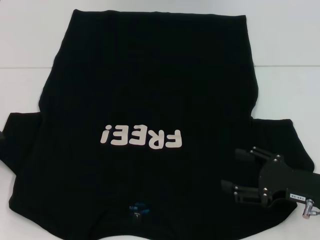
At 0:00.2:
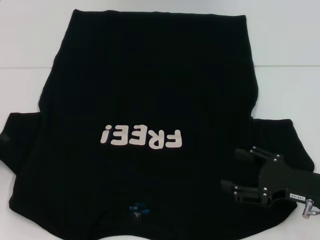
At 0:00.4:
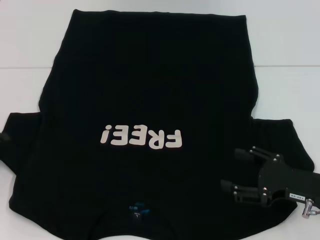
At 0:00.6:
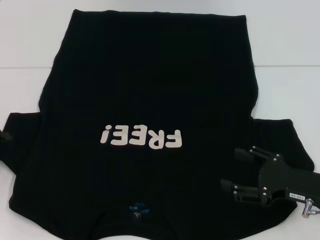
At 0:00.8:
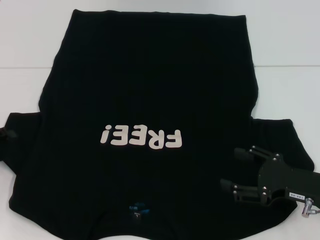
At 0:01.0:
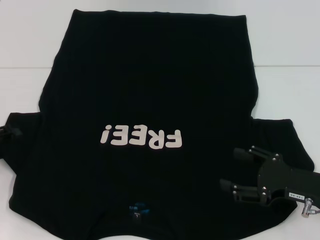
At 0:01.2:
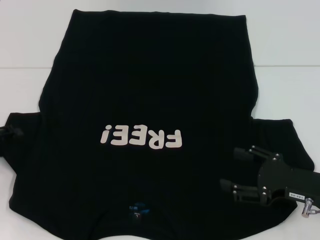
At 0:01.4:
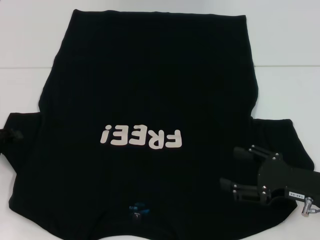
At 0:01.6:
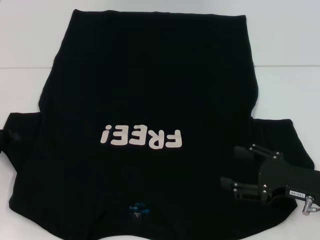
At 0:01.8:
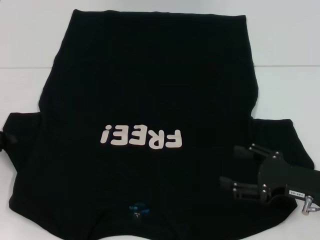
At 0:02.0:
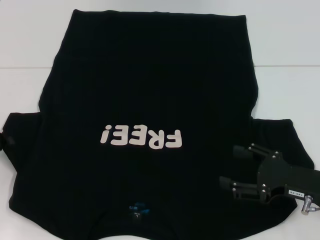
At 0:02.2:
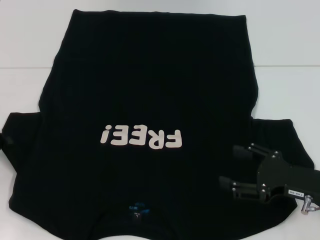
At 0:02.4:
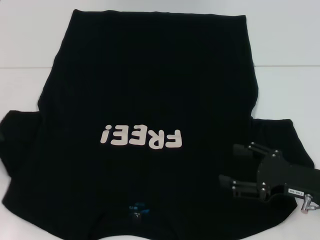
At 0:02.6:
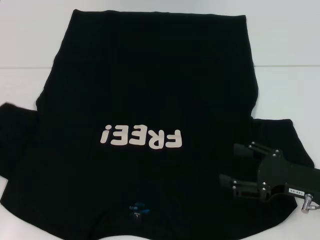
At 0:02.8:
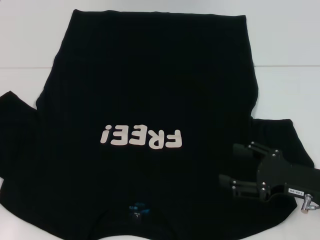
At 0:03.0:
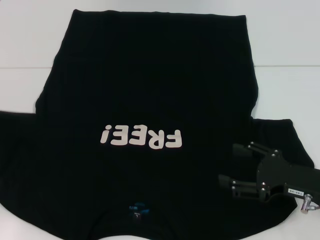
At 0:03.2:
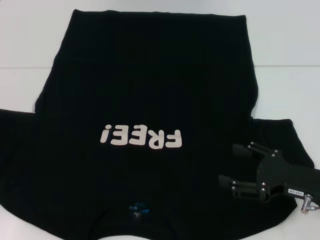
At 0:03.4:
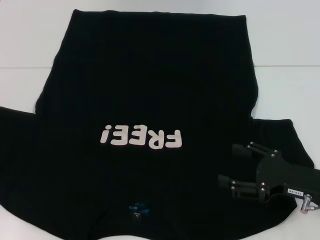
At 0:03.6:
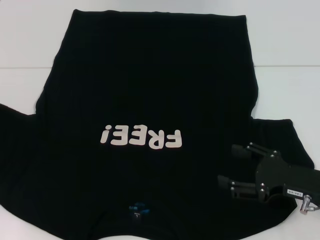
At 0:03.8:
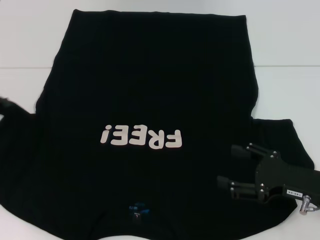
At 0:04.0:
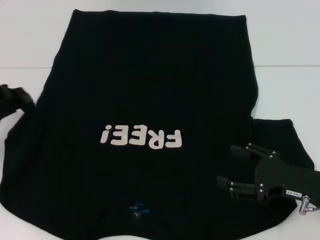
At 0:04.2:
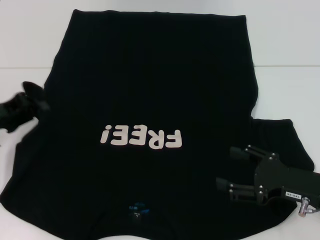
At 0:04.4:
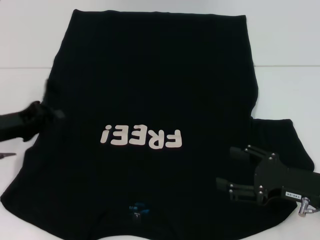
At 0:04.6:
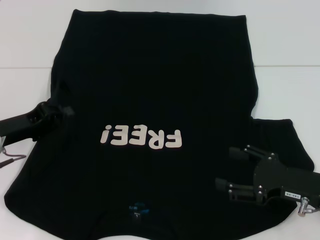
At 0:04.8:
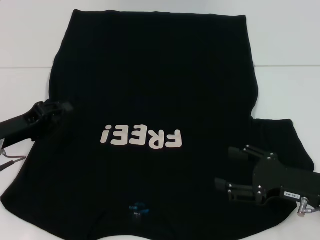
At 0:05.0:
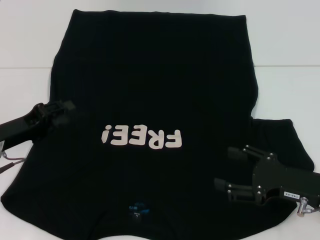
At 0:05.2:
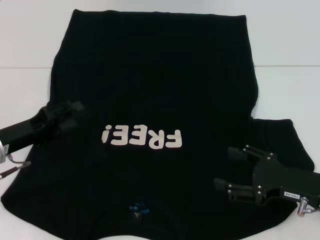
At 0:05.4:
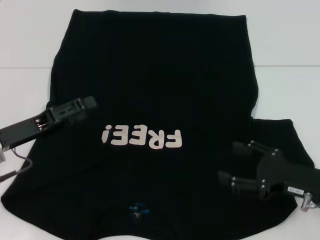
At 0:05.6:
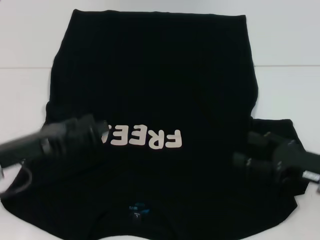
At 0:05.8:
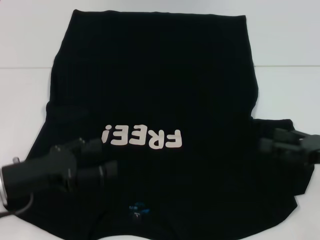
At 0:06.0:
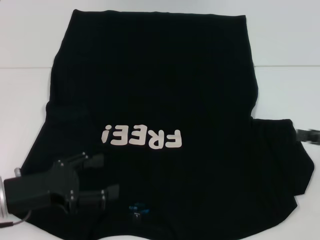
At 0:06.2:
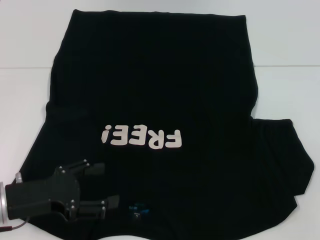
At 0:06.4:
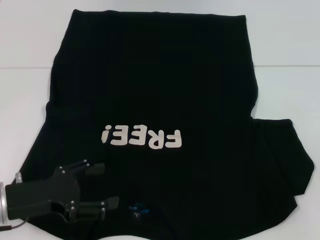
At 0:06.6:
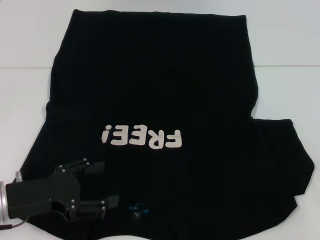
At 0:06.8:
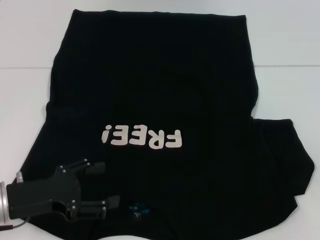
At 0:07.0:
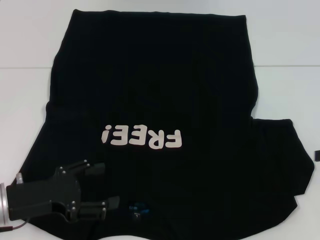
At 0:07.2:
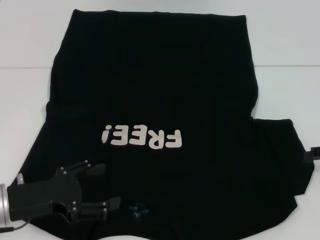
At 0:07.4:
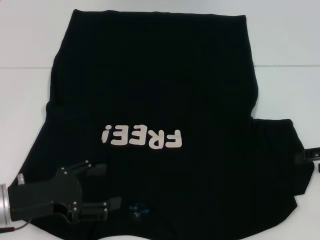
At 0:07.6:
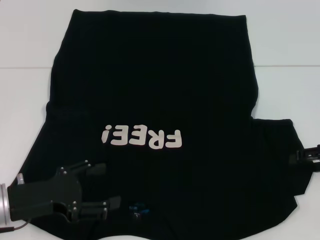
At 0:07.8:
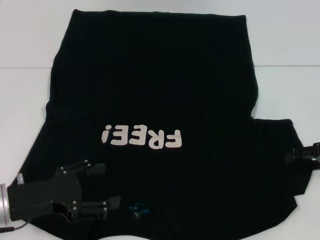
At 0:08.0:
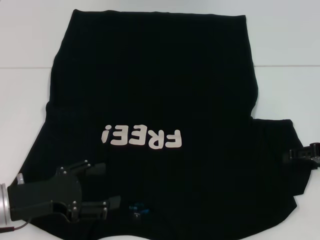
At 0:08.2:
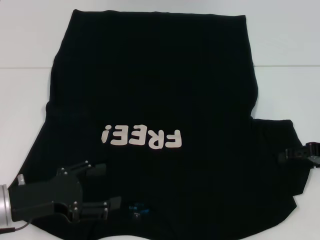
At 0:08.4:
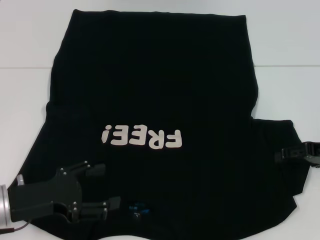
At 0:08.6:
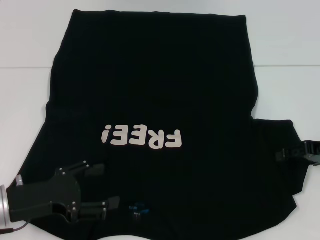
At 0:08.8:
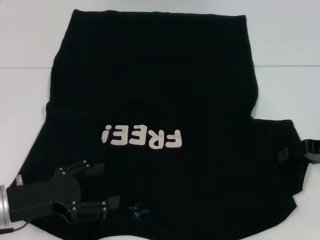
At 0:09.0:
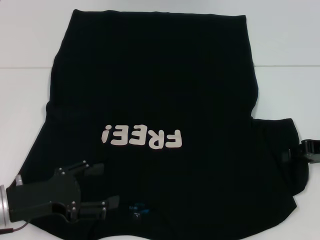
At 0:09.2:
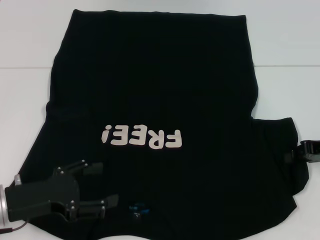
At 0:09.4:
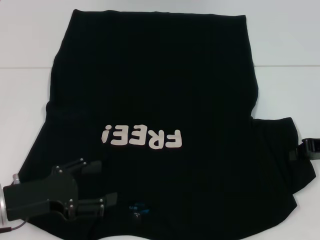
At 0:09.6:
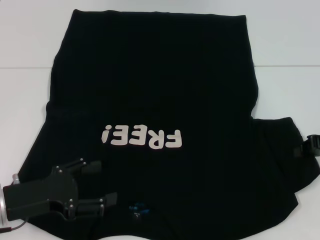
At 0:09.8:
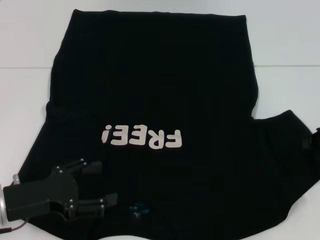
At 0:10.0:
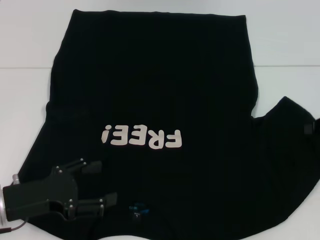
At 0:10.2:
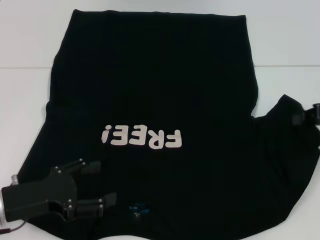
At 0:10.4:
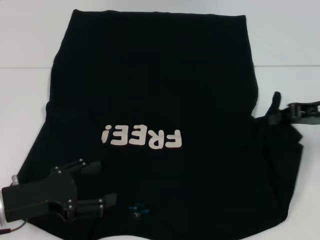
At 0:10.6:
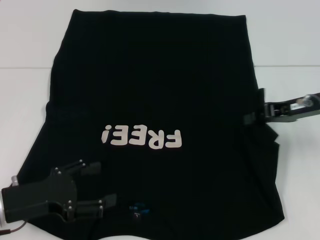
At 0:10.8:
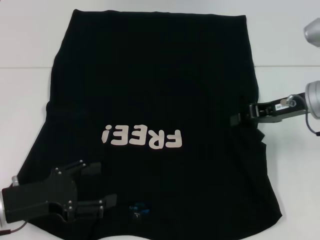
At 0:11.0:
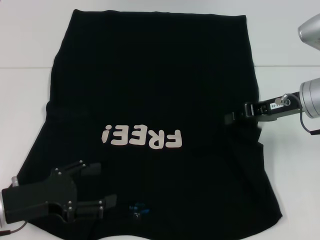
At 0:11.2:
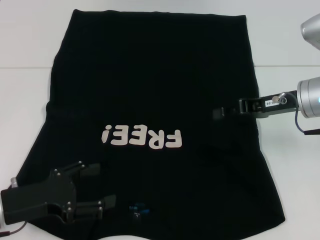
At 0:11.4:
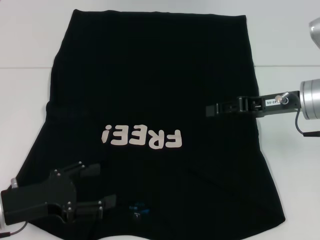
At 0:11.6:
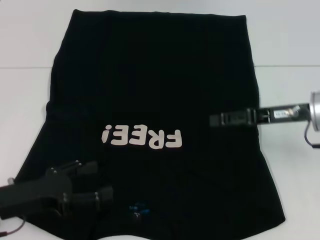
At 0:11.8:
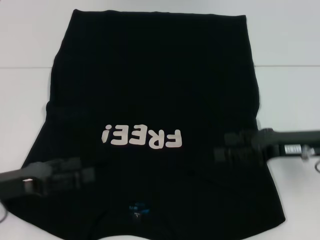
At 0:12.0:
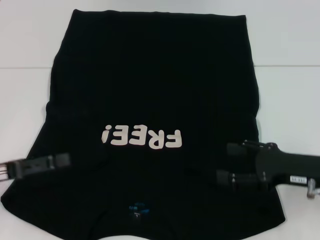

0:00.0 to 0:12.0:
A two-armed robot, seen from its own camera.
Step, 0:00.0 to 0:04.8: Fold the bottom left sleeve with your left hand.
Step, 0:05.0 to 0:11.2: Fold the bottom right sleeve with your right hand.
0:00.0 to 0:01.6: The grippers stay close to where they were, moving slightly.
0:01.6 to 0:03.0: The left gripper closes.
0:03.0 to 0:04.4: The left gripper goes approximately 10 cm to the right.
0:04.4 to 0:06.0: The right gripper heads to the right and upward, covering approximately 10 cm; the left gripper moves backward, roughly 10 cm, and opens up.
0:06.0 to 0:07.6: The right gripper travels forward by approximately 5 cm.
0:07.6 to 0:09.0: The right gripper closes.
0:09.0 to 0:10.4: The right gripper changes place by roughly 5 cm, and closes.
0:10.4 to 0:12.0: The left gripper goes approximately 5 cm to the left; the right gripper travels backward and downward by about 10 cm, and opens its fingers.

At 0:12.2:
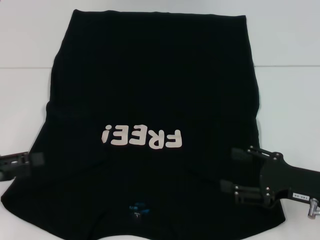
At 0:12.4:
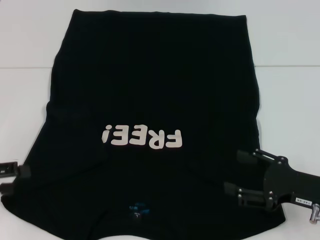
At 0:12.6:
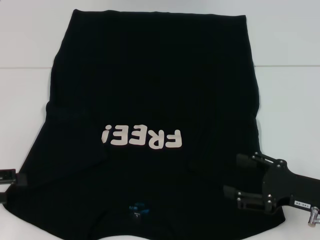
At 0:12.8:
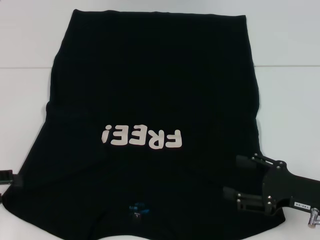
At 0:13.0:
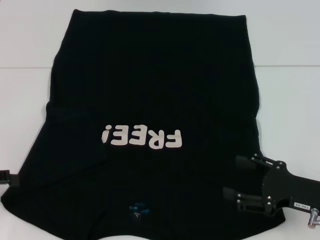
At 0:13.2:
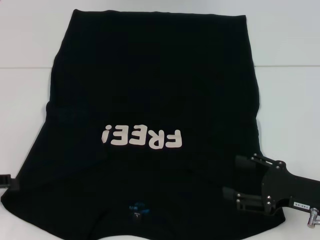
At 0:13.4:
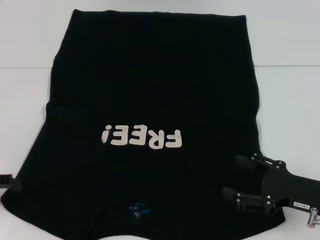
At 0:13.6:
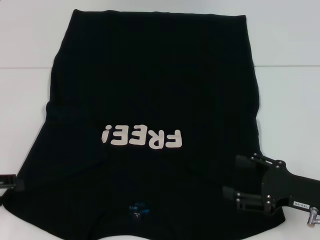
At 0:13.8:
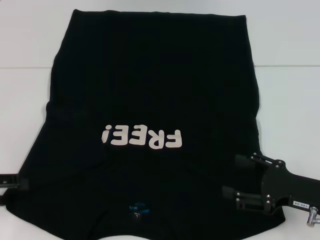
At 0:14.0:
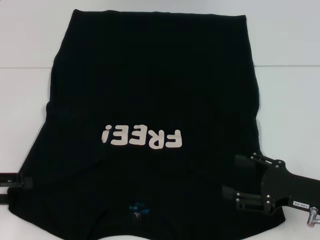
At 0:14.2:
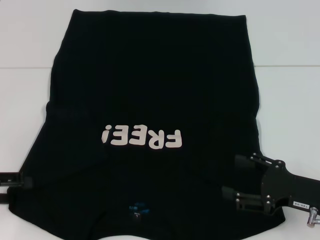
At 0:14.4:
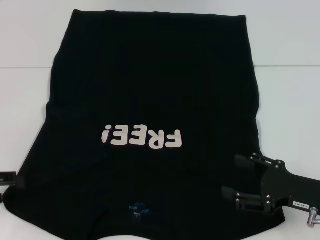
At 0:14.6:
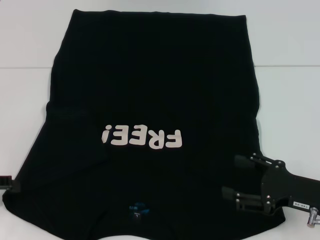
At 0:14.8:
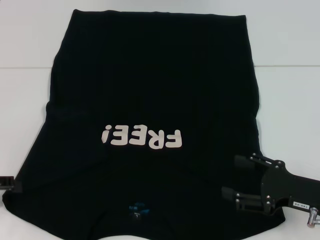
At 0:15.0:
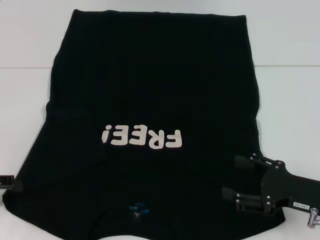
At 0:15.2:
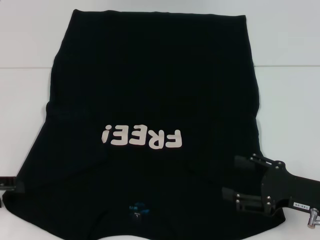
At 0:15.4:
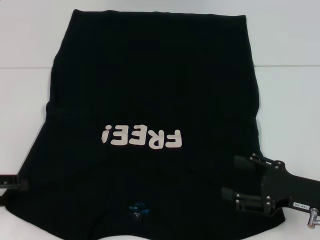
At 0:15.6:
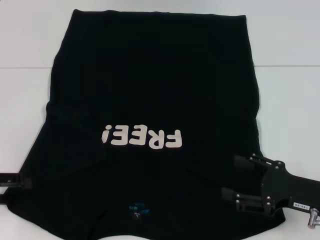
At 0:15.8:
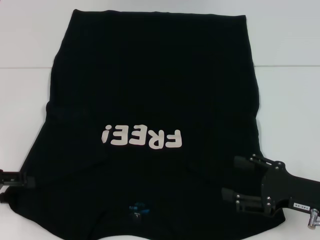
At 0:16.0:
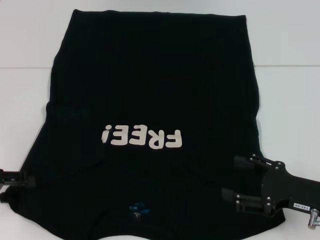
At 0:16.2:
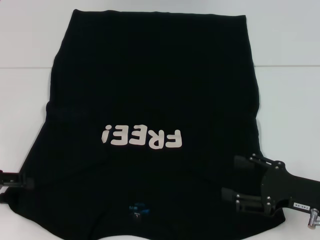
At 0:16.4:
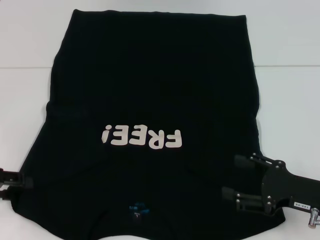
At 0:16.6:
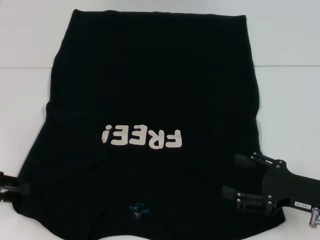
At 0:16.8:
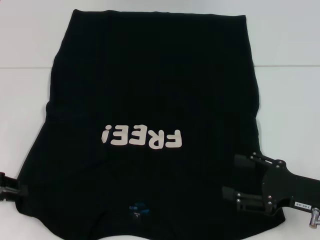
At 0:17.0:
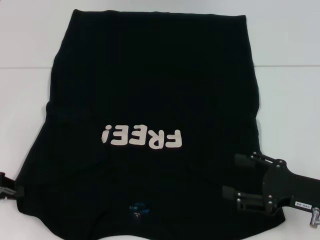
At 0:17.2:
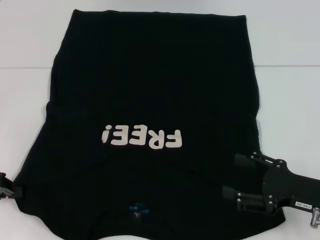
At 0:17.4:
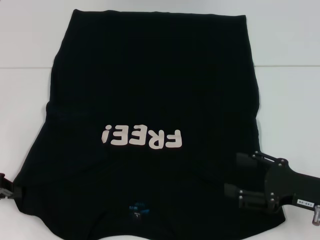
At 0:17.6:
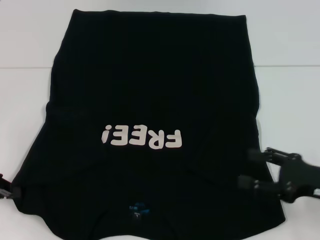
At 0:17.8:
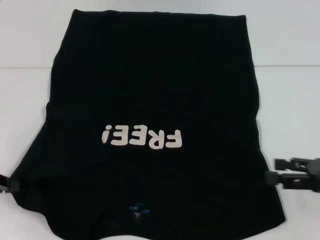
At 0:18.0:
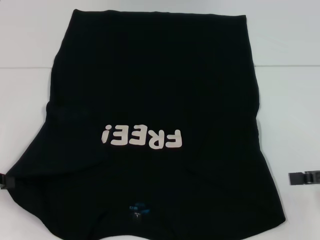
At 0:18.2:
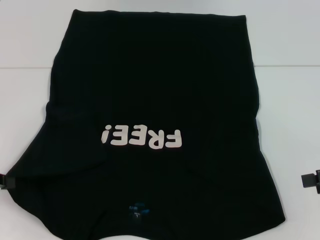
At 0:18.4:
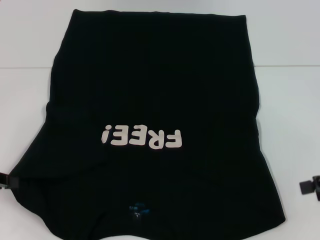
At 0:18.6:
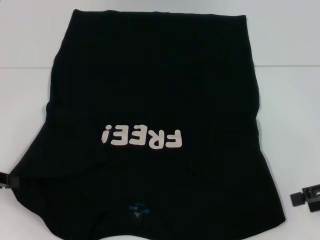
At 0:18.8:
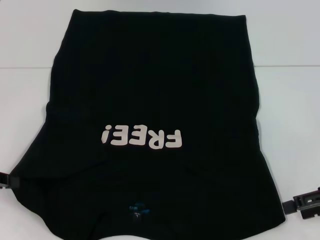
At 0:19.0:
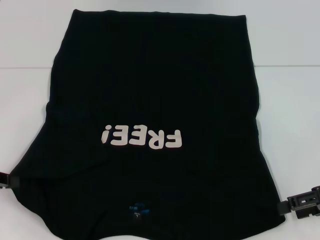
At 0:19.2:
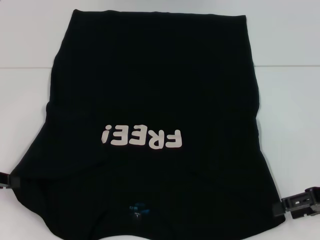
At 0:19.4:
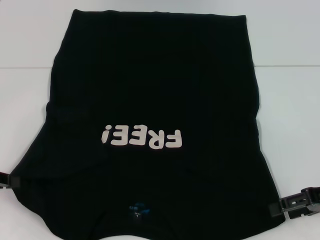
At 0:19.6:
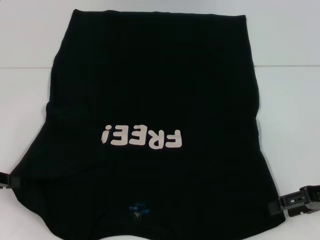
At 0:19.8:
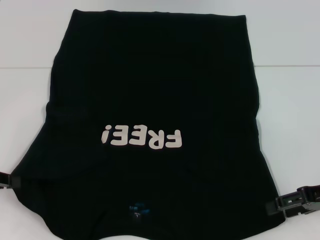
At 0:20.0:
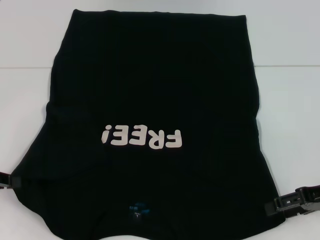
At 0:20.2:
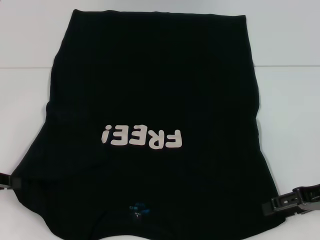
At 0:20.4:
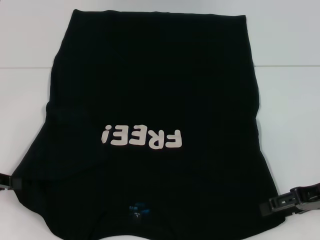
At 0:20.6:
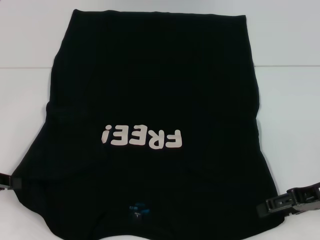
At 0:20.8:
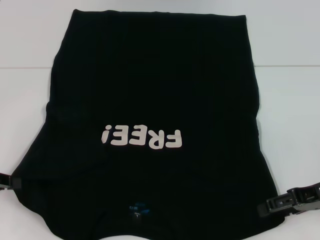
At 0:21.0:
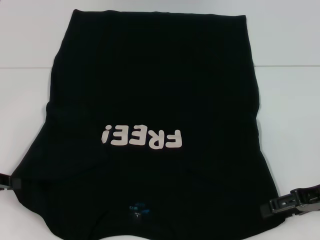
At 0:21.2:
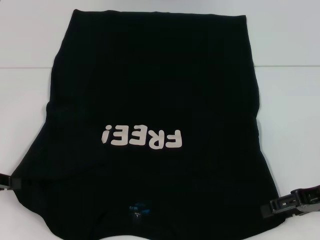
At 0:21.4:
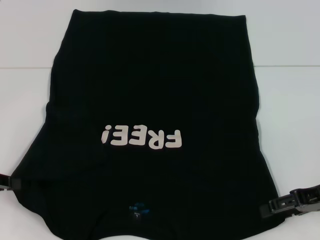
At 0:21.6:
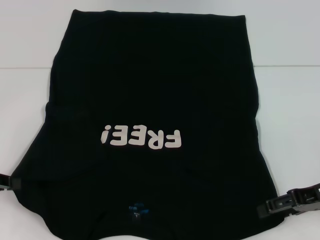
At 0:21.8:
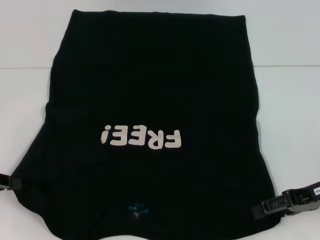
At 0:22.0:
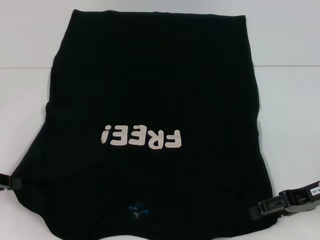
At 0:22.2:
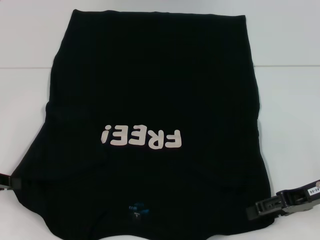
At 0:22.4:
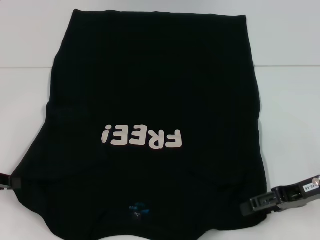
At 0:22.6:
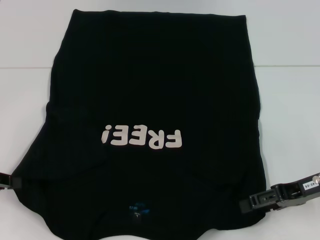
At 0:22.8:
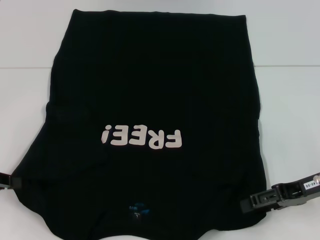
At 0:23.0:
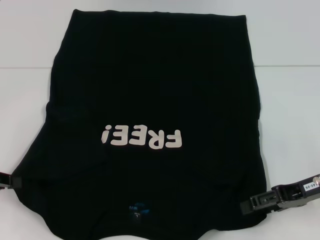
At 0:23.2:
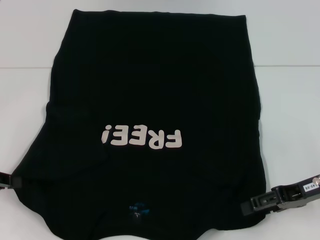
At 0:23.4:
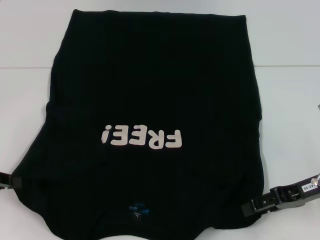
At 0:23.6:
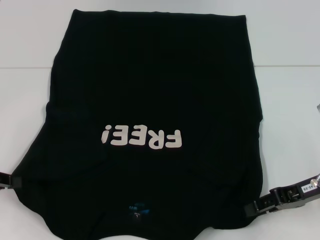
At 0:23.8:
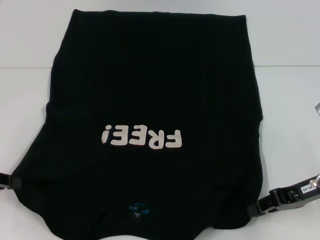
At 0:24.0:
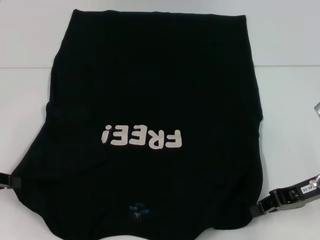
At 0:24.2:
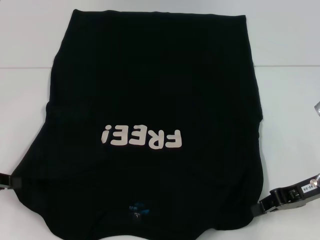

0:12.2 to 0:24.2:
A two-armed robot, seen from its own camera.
Step, 0:12.2 to 0:17.2: Grab the bottom left corner with your left hand.
Step, 0:17.4 to 0:23.0: Grab the bottom right corner with your right hand.
0:13.8 to 0:15.2: The two grippers keep their place.
0:15.2 to 0:16.6: The grippers make only small movements.
0:16.6 to 0:18.2: The left gripper closes up; the right gripper goes about 15 cm upward and to the right.
0:18.2 to 0:19.8: The right gripper shifts approximately 5 cm to the left.
0:21.2 to 0:22.6: The grippers make only small movements.
0:22.6 to 0:24.2: The right gripper closes.
